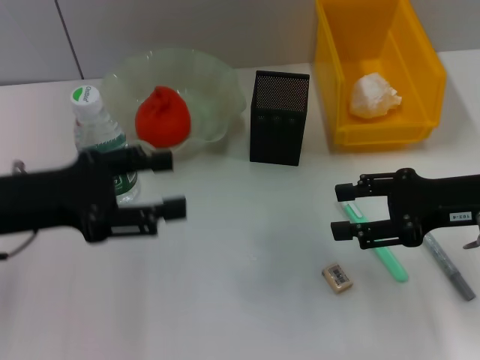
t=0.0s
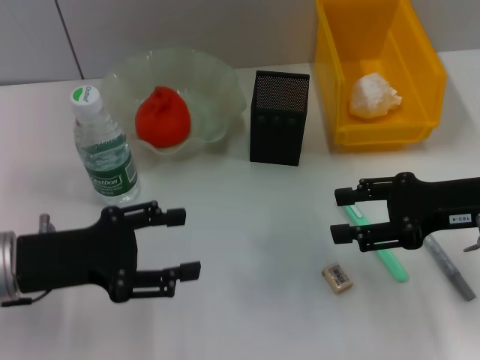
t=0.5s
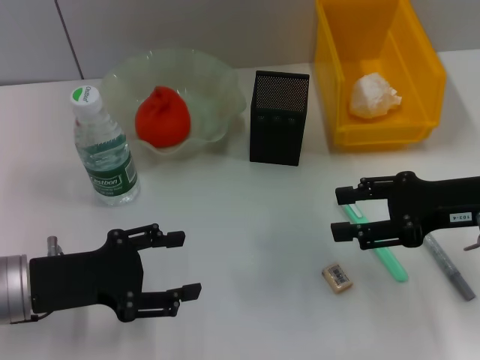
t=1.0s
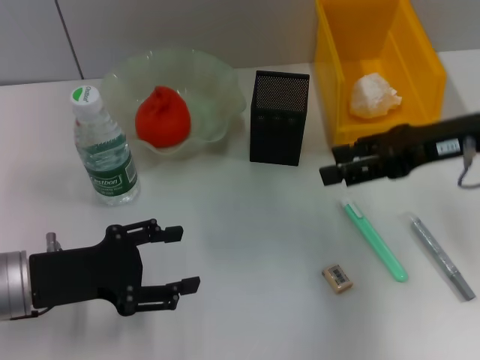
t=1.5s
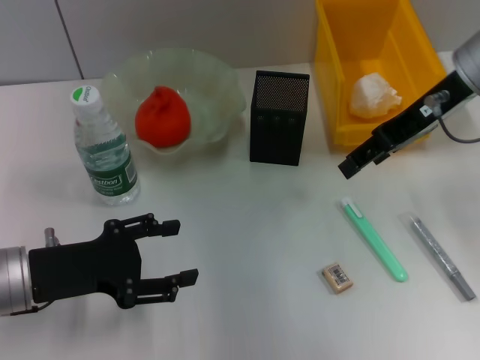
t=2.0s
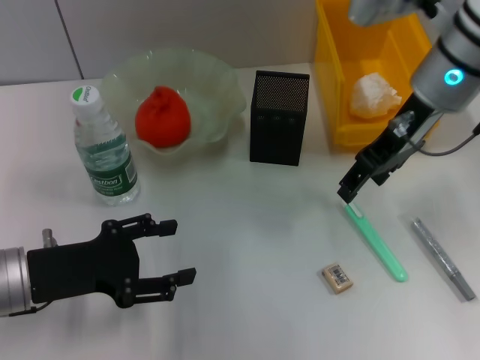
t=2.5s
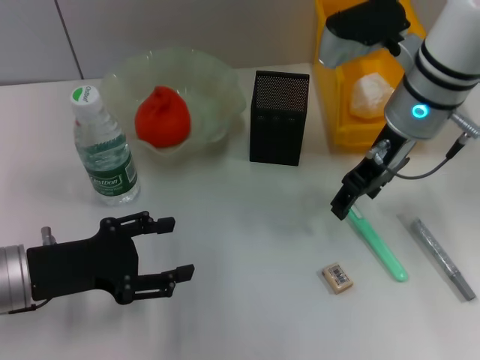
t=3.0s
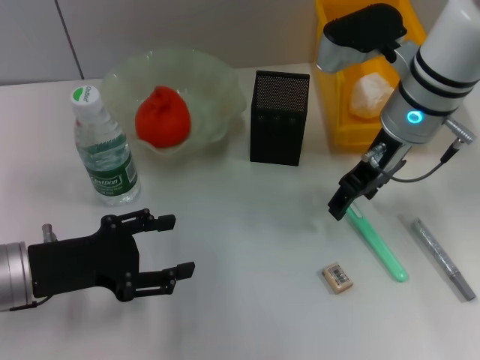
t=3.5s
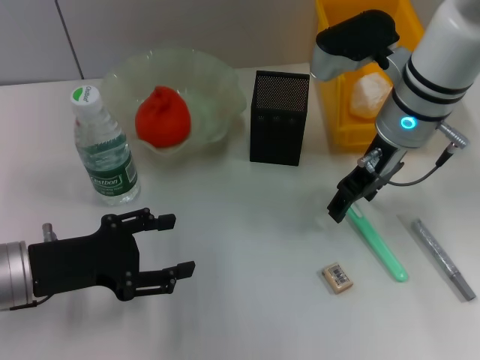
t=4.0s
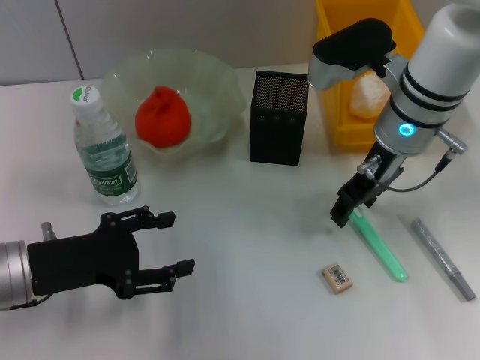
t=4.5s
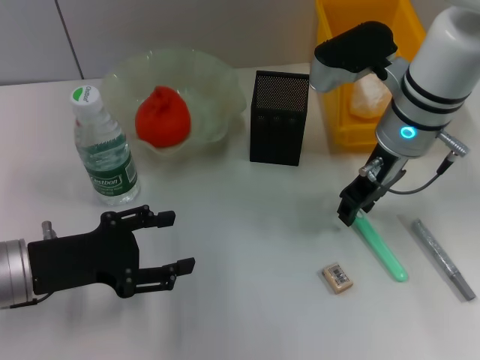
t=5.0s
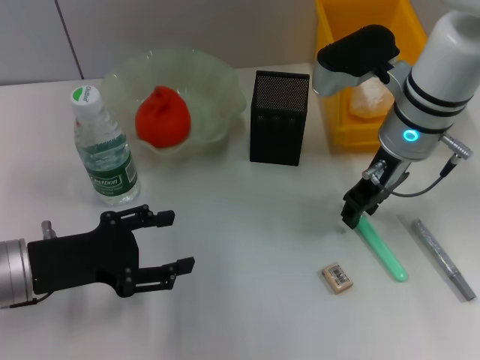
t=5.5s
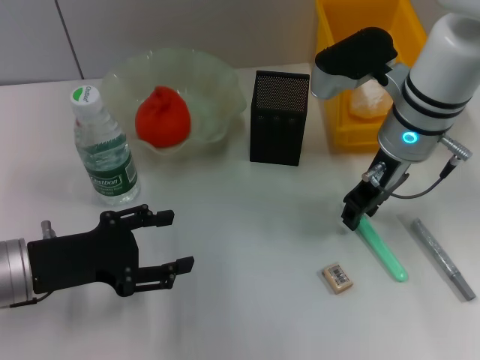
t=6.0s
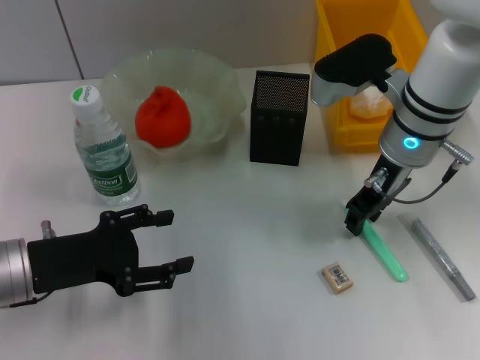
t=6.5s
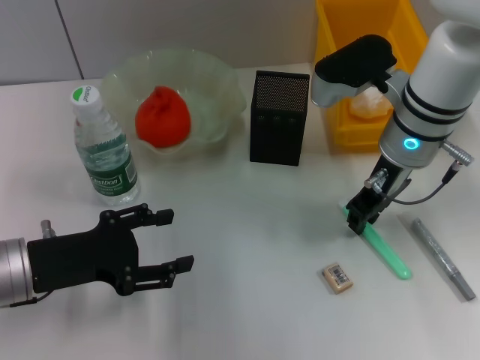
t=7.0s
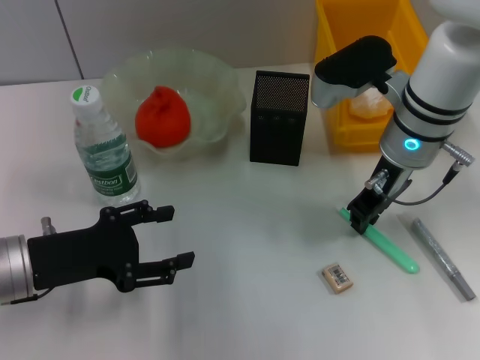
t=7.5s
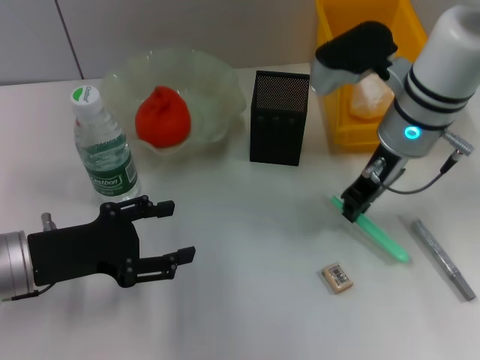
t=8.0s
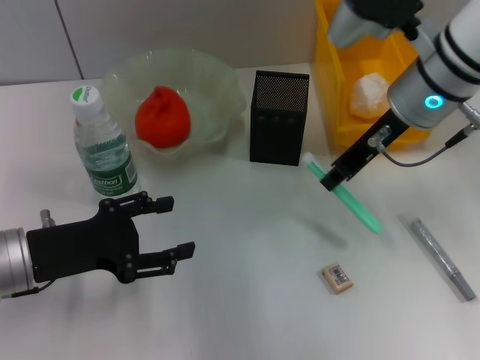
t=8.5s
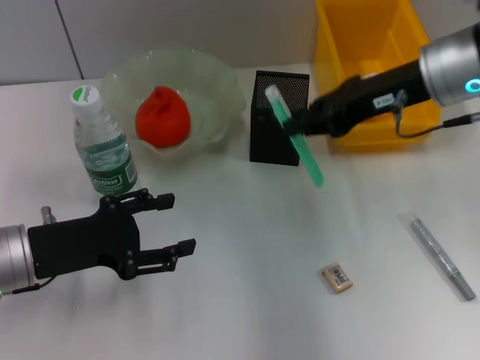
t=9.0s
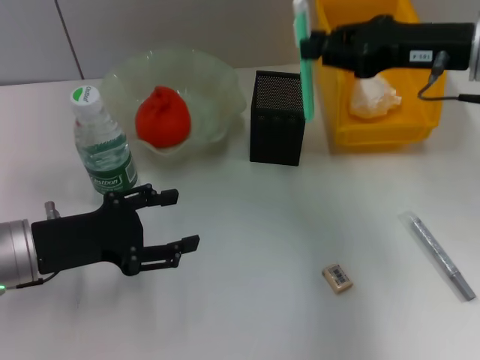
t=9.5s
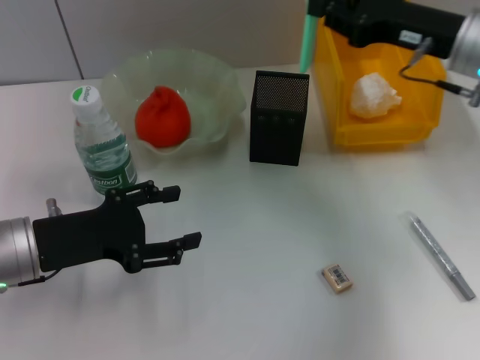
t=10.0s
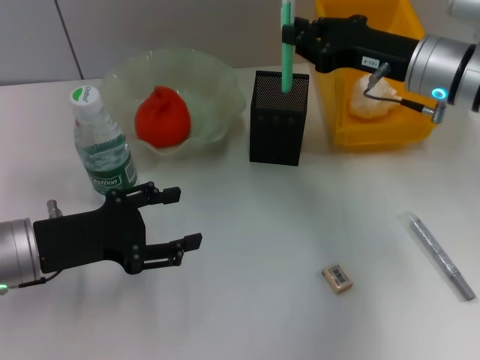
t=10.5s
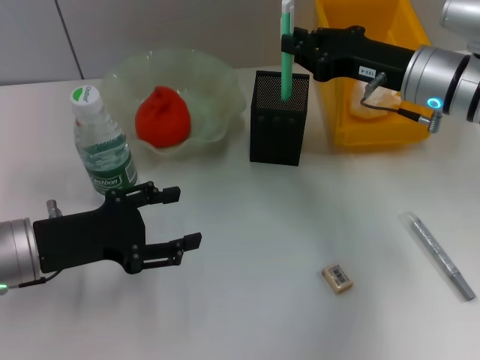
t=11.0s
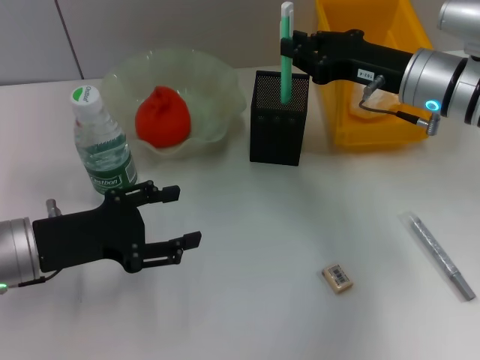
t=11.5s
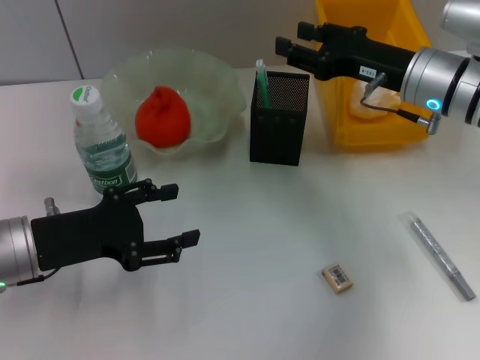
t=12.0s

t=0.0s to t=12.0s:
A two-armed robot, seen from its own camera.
Step, t=0.0s to t=7.0s: Grab the blue utility knife with the right hand.
t=0.0s to t=2.0s: The left gripper goes about 10 cm downward. Meanwhile the right gripper travels upward, forward and to the left by some 15 cm.
t=2.0s to t=4.0s: The right gripper is displaced downward and to the left by about 10 cm.
t=4.0s to t=6.0s: The right gripper closes.
t=6.0s to t=8.0s: Neither gripper changes place.
t=8.0s to t=10.0s: The right gripper goes about 10 cm to the right.
t=10.0s to t=12.0s: The right gripper ends up roughly 5 cm from where it was, and opens up.

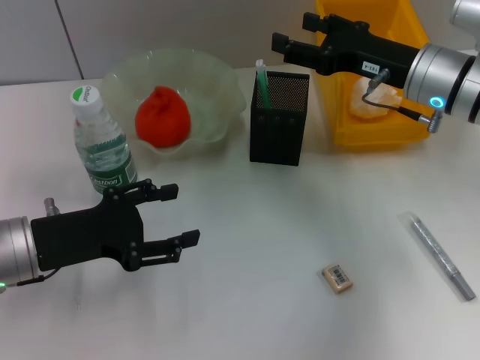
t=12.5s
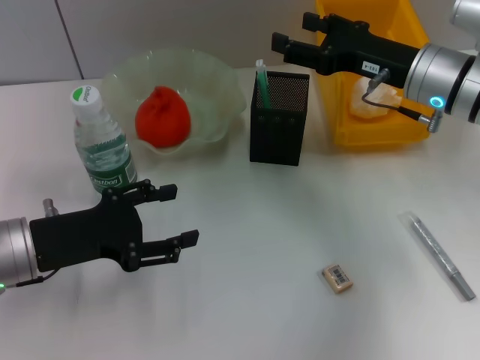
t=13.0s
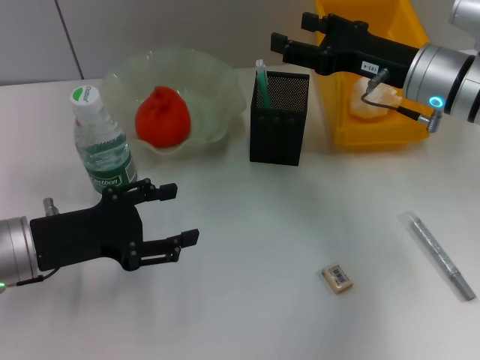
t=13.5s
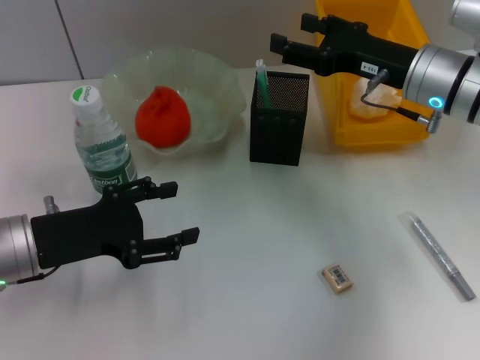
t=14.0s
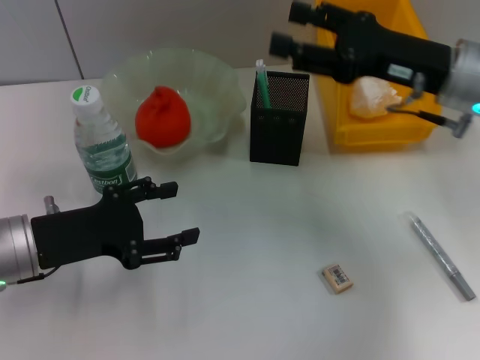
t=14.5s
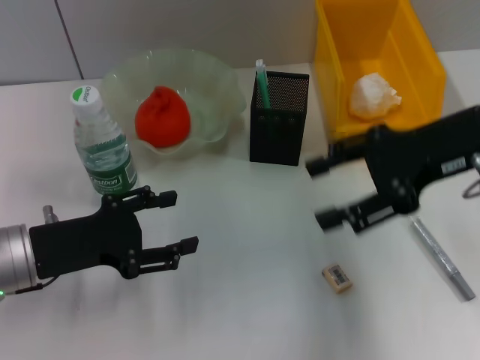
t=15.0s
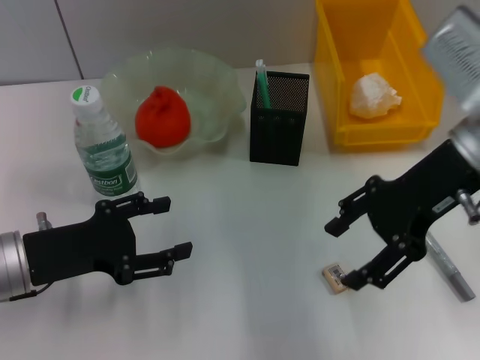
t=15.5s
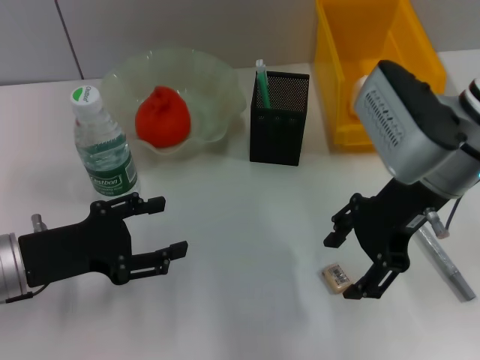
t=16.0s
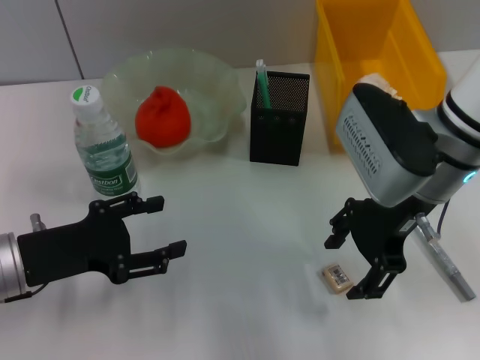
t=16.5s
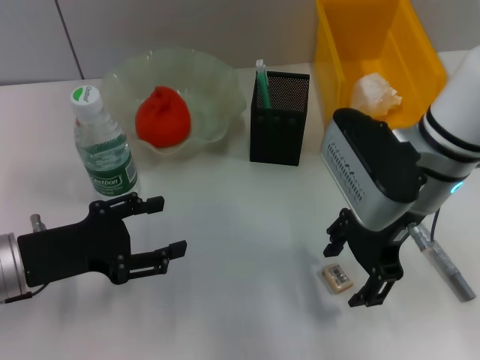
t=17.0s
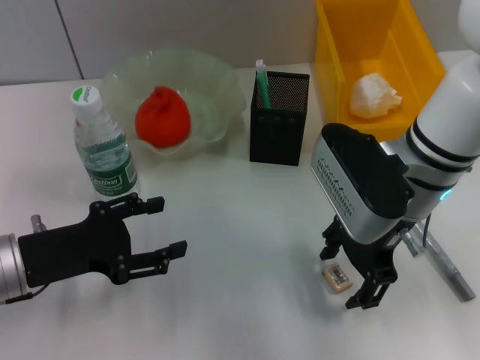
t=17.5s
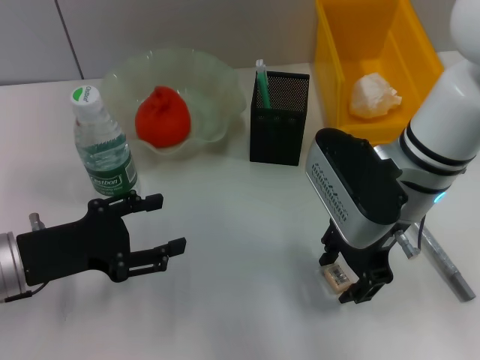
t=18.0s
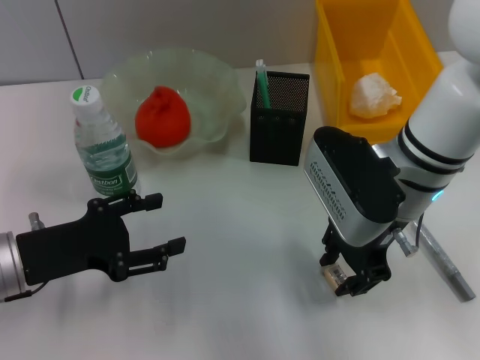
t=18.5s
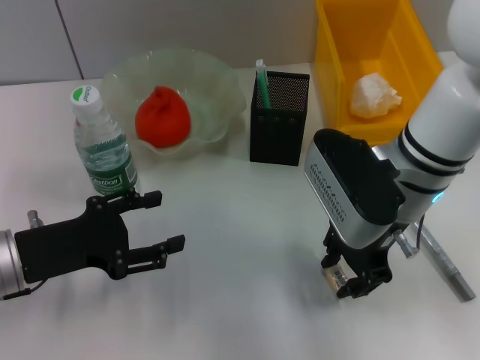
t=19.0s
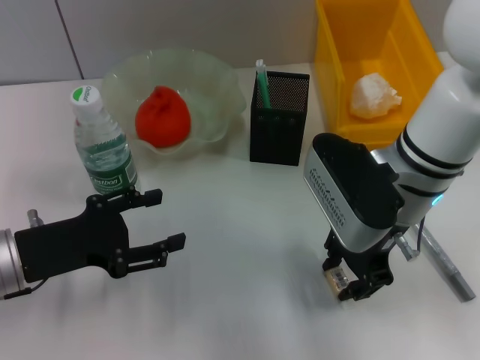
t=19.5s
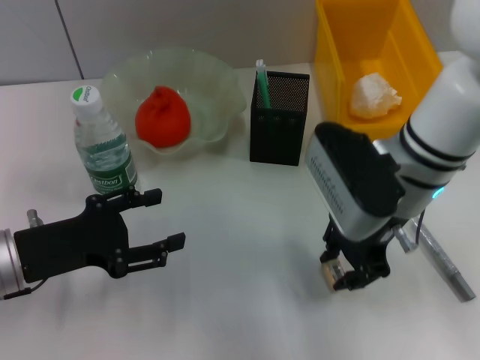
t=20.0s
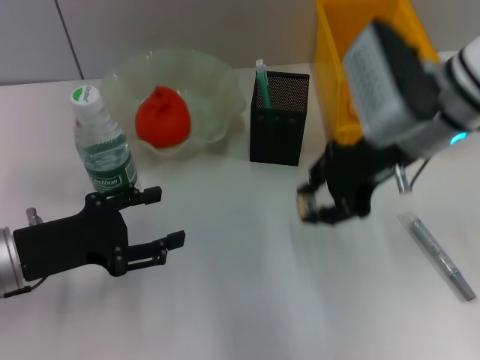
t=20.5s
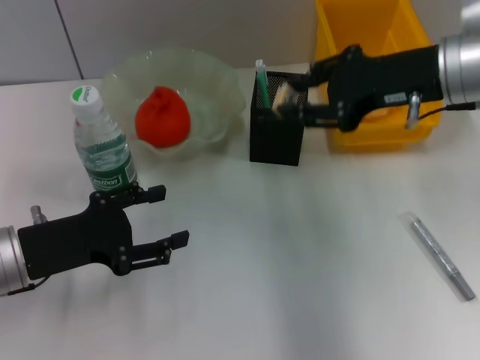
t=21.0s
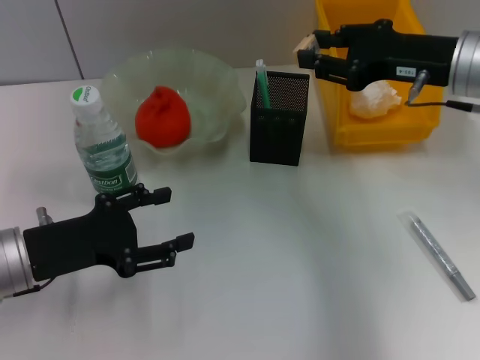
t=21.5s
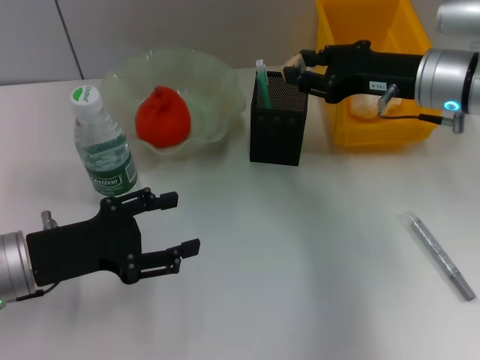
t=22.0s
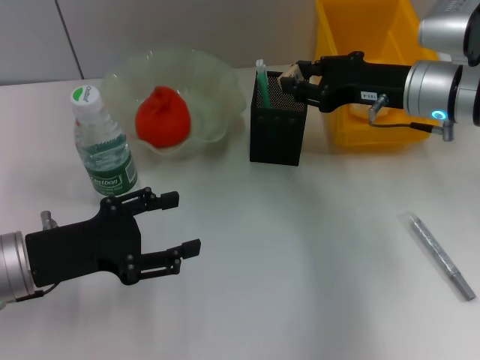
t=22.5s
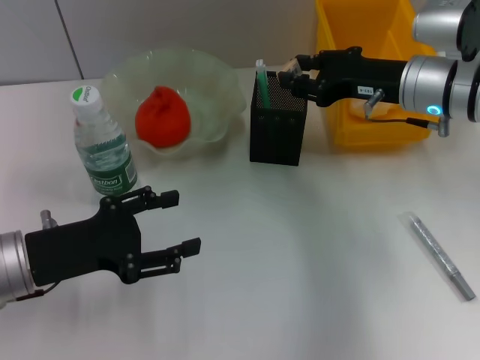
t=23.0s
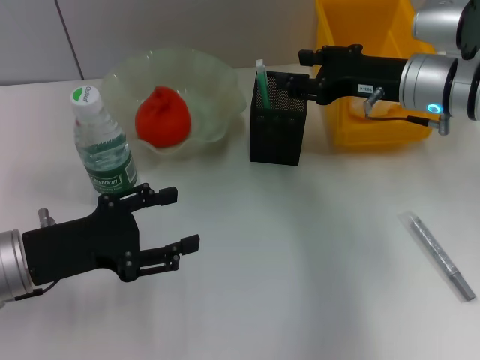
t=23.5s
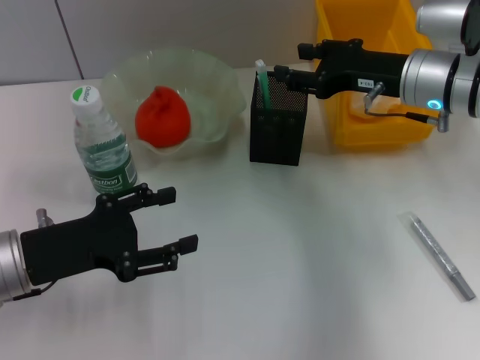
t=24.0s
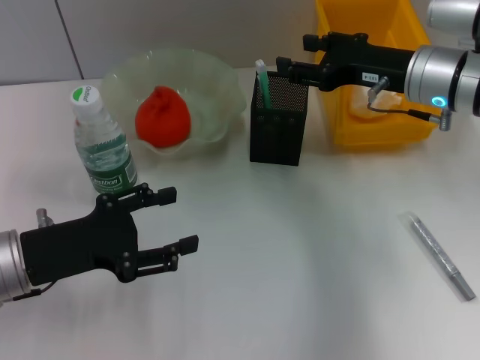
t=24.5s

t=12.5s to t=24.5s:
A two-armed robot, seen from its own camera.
Step, t=12.5s to t=20.0s: Grab the eraser with the right hand.
Step, t=20.5s to t=23.5s: Put the eraser into the pen holder with the right hand.
t=14.5s to t=16.5s: The right gripper shifts about 5 cm to the left.
t=16.5s to t=18.5s: The grippers move only a little.
t=18.5s to t=20.5s: The right gripper travels upward by about 5 cm.
t=20.5s to t=22.5s: The right gripper goes roughly 5 cm downward.
t=22.5s to t=24.5s: The right gripper opens.

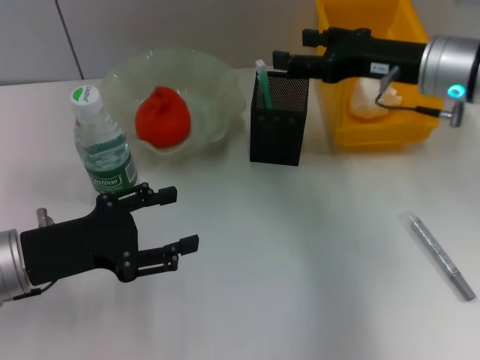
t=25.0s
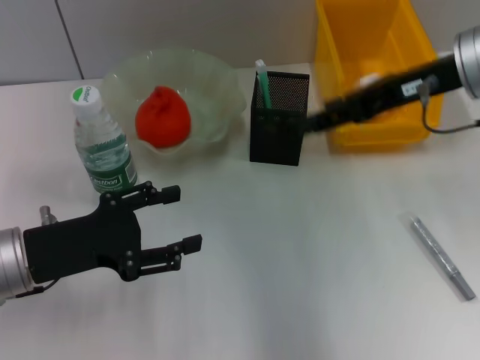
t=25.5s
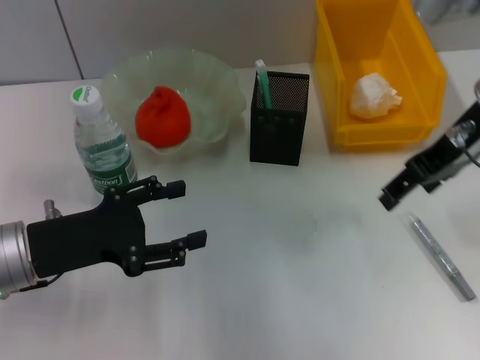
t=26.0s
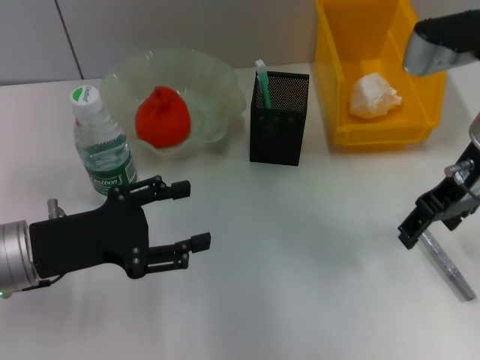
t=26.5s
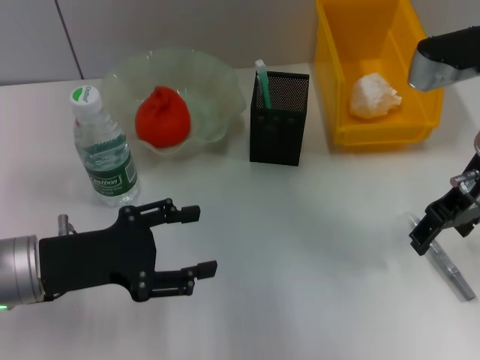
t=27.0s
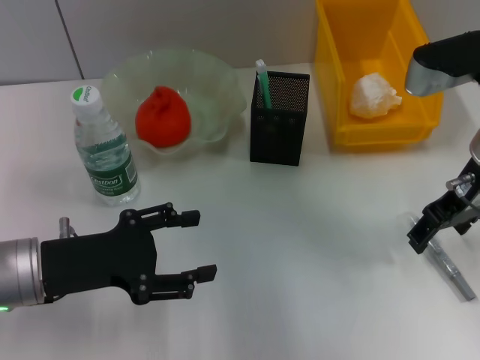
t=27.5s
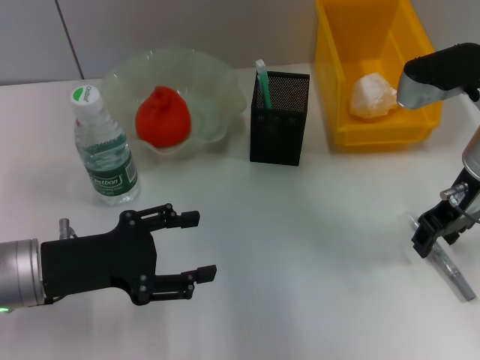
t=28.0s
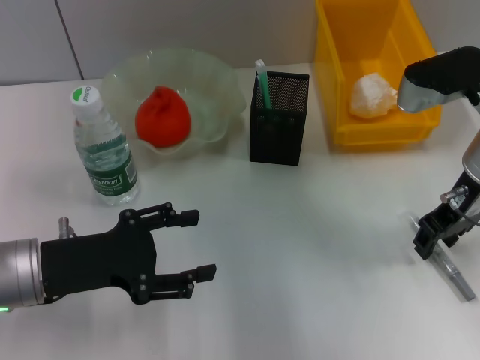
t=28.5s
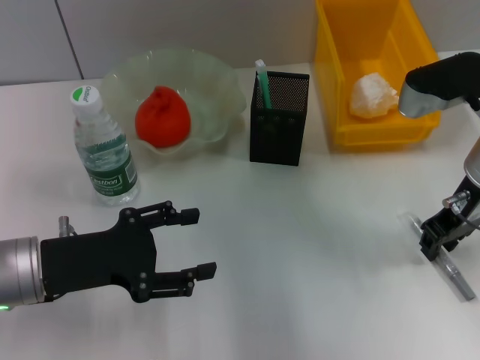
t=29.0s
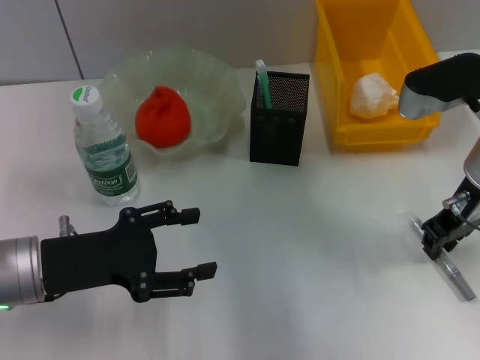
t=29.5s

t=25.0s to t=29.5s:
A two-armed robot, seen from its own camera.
t=27.0s to t=29.5s: The right gripper closes up.
